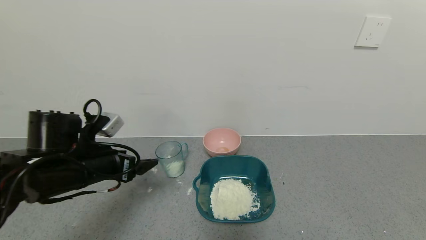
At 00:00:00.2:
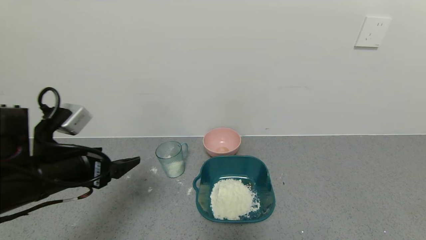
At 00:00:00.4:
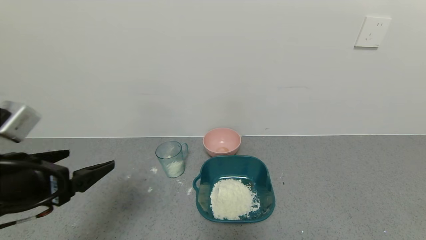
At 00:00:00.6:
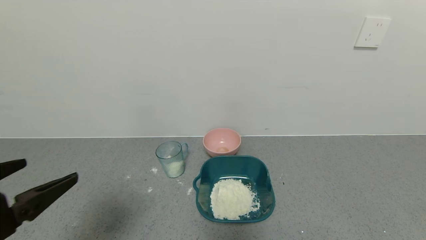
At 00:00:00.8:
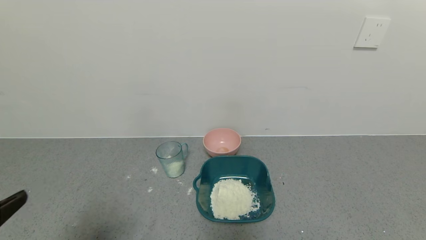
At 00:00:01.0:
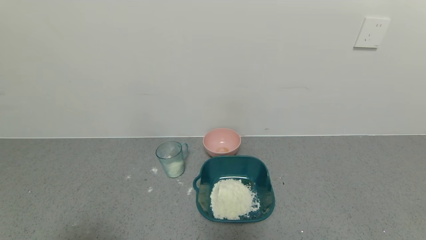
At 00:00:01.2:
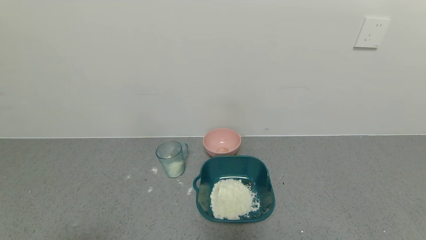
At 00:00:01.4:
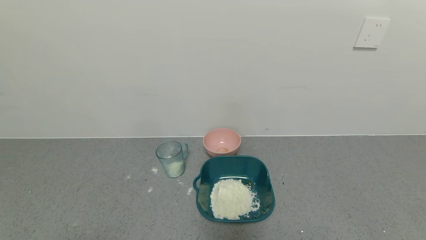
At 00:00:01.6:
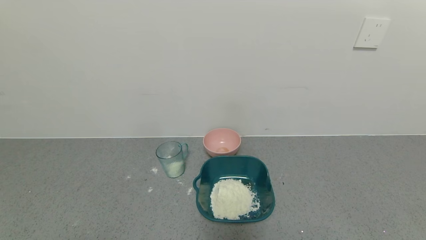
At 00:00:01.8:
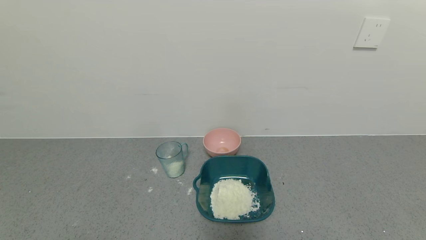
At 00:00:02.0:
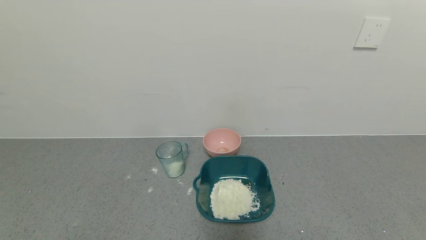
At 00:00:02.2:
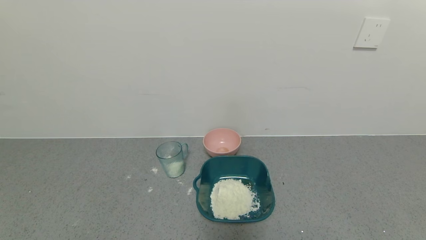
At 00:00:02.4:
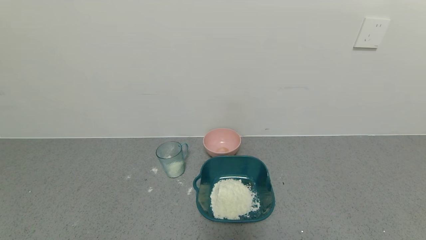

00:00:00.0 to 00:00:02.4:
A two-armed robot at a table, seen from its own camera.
Task of the whole recording: use a gripper to pick up the cup and pour the powder into a bowl or tray.
00:00:00.0 to 00:00:01.2: The left gripper travels backward by about 25 cm.
